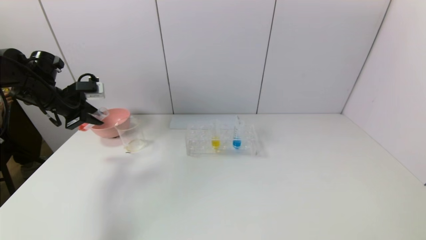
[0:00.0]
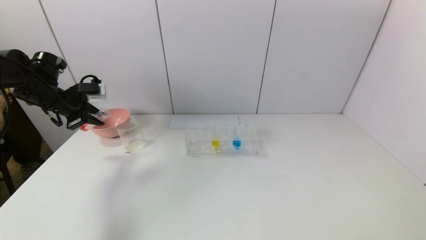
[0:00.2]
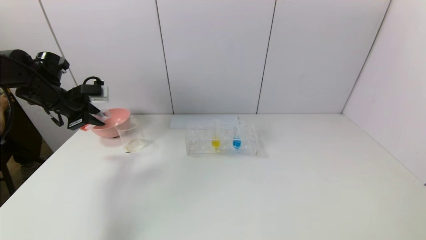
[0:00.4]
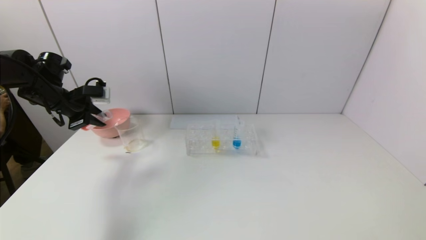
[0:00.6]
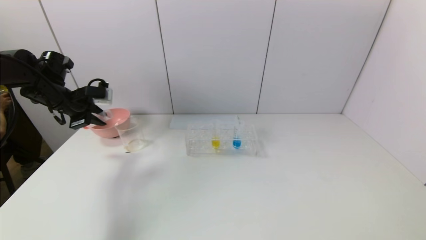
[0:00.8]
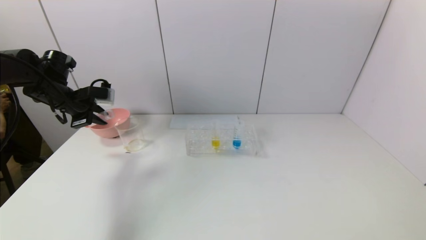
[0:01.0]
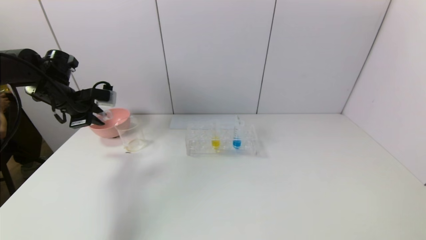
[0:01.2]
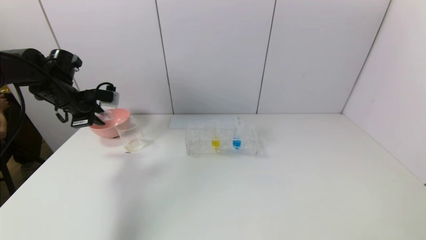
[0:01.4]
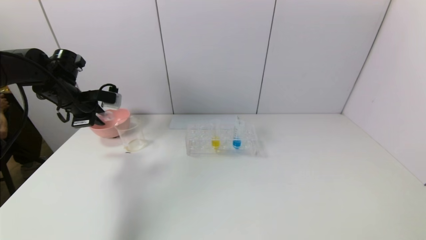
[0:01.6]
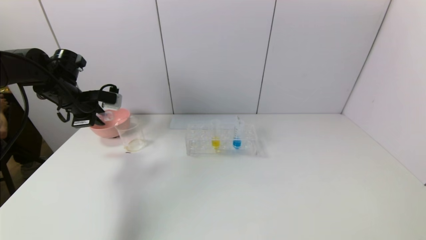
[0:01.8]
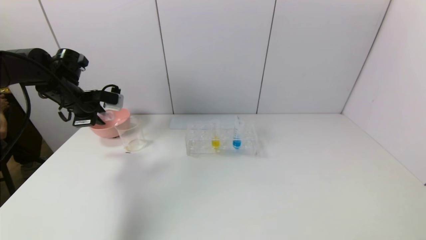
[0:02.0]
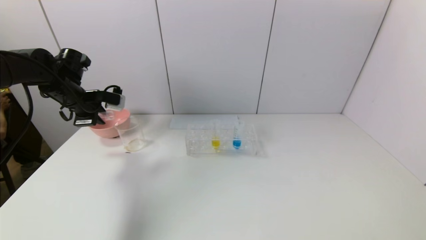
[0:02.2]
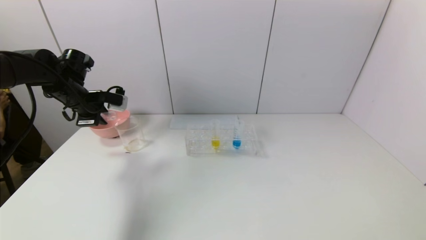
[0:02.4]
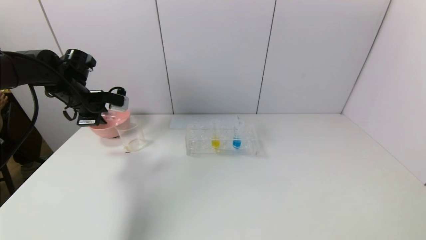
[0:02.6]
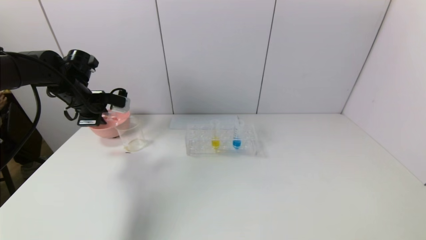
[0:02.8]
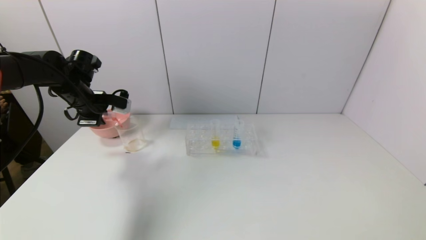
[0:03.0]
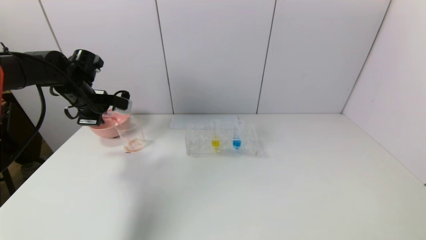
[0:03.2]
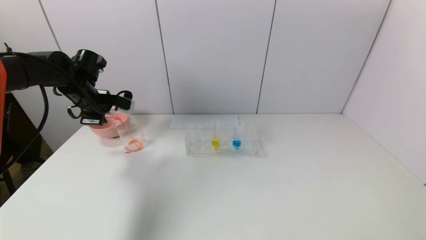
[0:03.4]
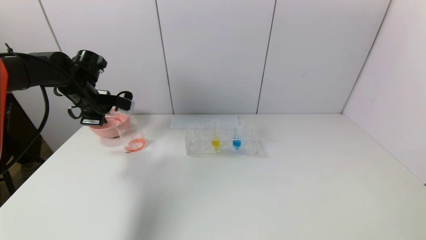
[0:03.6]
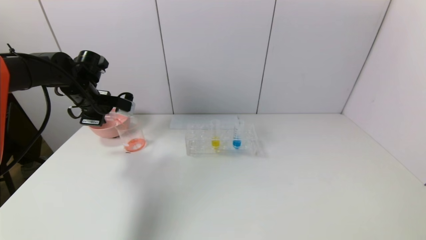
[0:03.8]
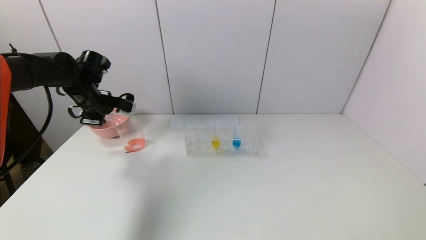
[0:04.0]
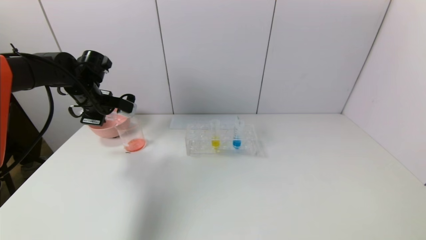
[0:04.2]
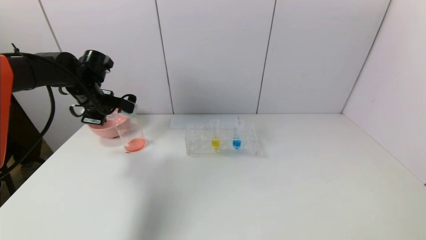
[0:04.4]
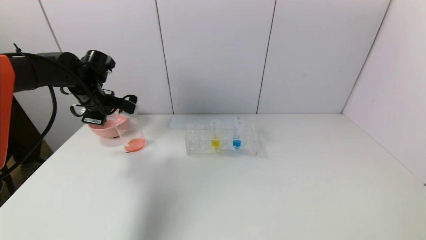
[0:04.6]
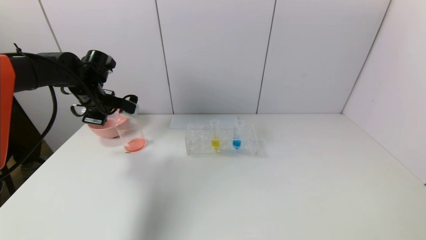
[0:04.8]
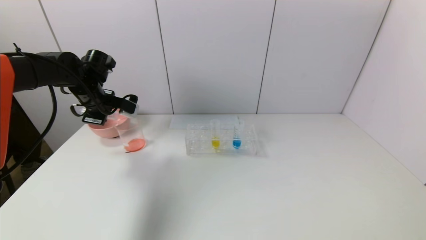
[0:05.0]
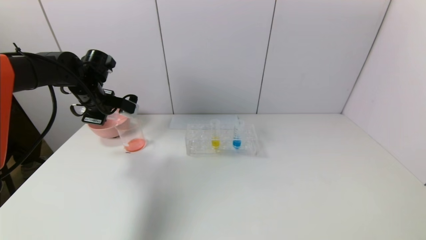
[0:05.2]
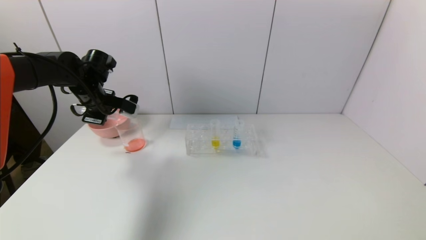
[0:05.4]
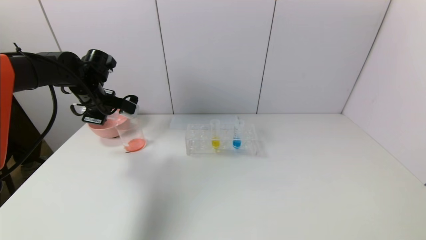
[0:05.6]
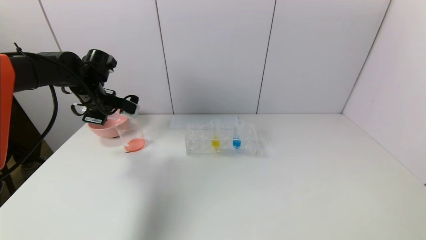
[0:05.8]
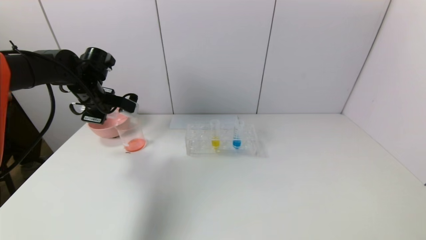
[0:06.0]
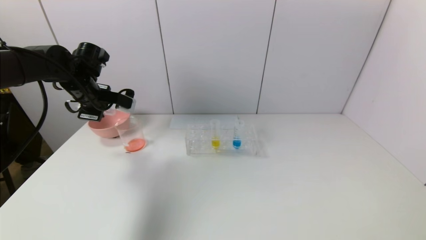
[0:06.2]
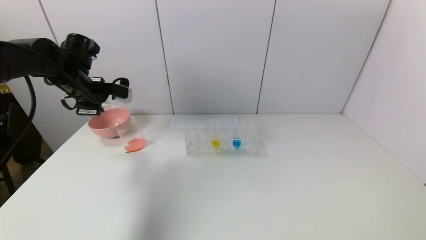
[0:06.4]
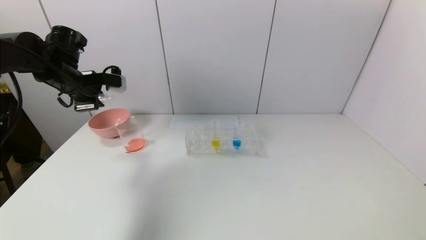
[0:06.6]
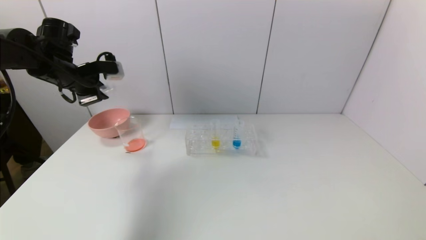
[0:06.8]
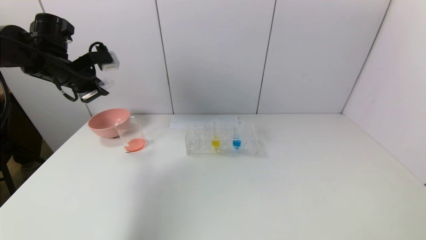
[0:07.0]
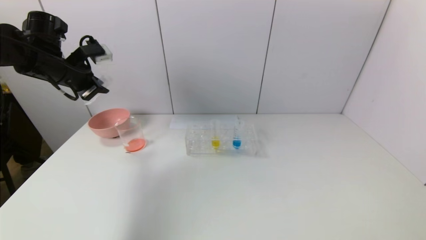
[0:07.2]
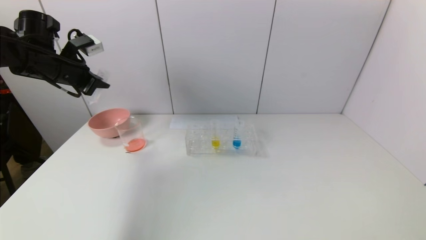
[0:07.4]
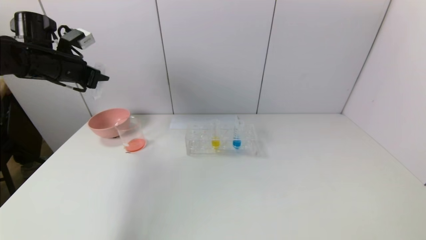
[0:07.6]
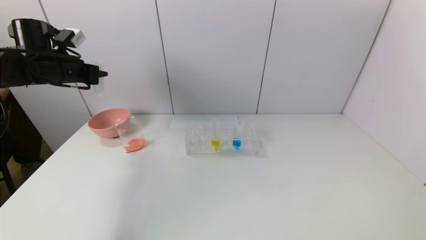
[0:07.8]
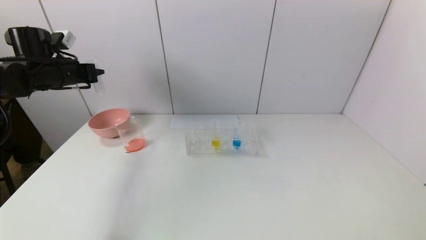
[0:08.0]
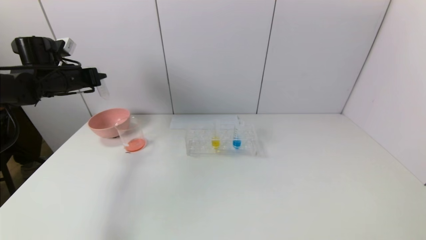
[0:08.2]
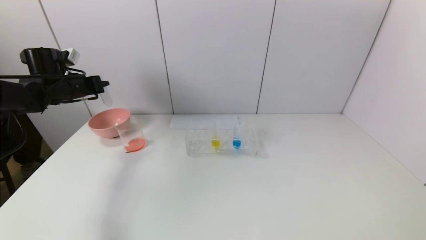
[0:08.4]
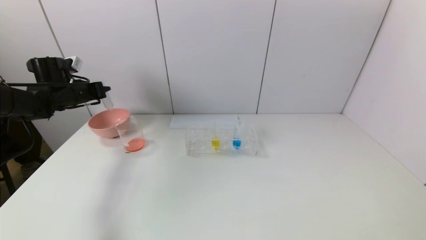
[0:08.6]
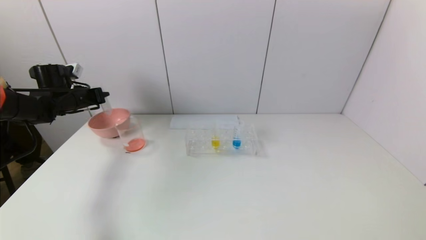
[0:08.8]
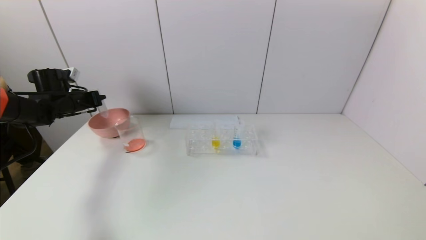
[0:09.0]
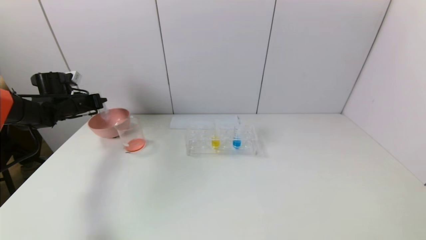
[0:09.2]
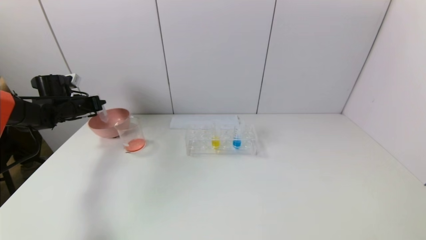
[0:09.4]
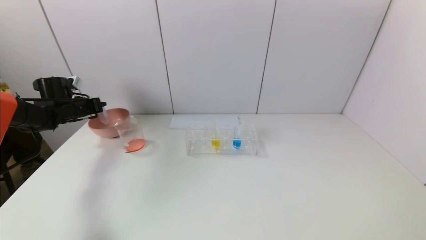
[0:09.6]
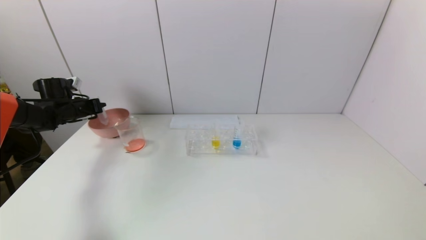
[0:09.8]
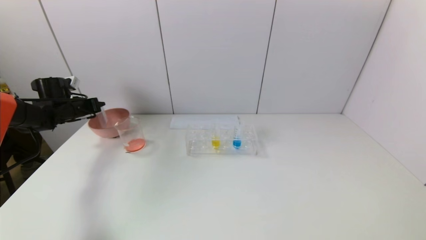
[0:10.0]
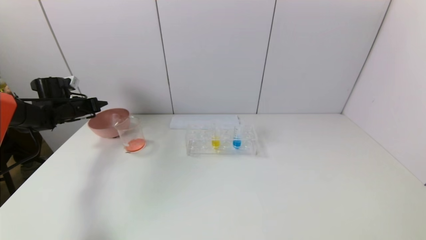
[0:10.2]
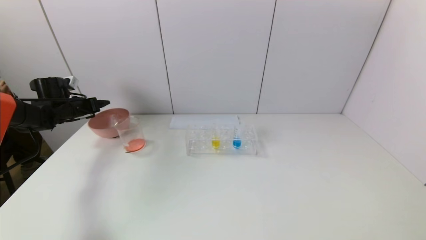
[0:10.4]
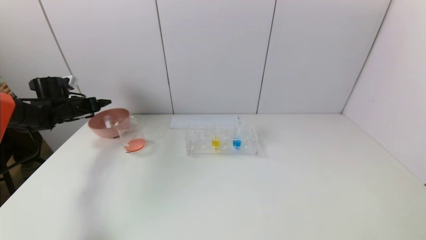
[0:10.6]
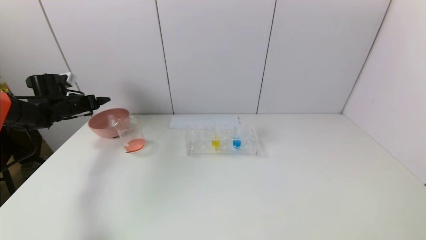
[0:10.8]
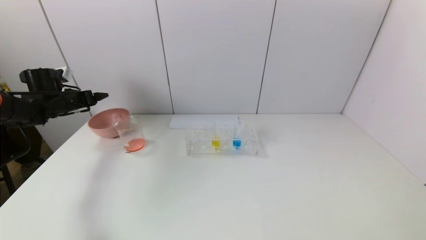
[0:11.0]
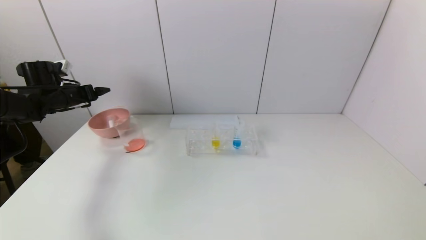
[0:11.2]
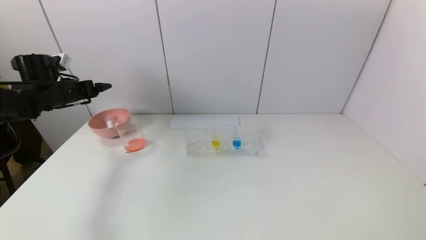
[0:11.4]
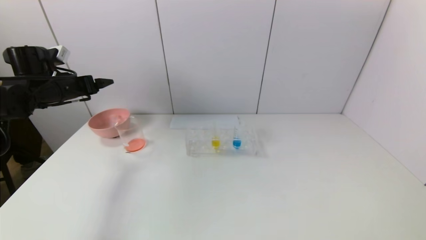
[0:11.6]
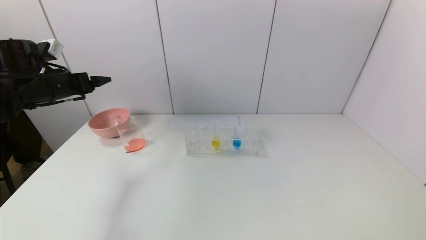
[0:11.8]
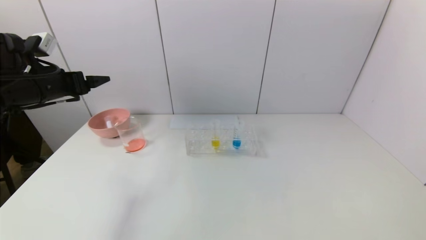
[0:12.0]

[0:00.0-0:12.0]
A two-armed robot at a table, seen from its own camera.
Task of the whole recording: pick up the test tube with yellow pigment and the test tube with red pigment by grippers and pour them into the beaker.
Step, 0:00.0 to 0:05.8: Pour the red reagent into the graduated cylinder with the left gripper.
Step, 0:06.0 to 0:10.2: Place the test tube into the pink bowl with the left gripper.
0:00.0 to 0:01.6: The grippers stay close to where they were, moving slightly.
0:01.6 to 0:03.0: The grippers make only small movements.
0:03.0 to 0:04.4: The grippers stay close to where they were, moving slightly.
0:04.4 to 0:06.0: Both grippers stay about where they are.
0:06.0 to 0:07.6: The left gripper goes some 10 cm upward and to the left.
0:07.6 to 0:09.0: The left gripper travels downward, to the left and forward by roughly 15 cm.
0:09.0 to 0:10.4: The left gripper opens.
0:10.4 to 0:12.0: The left gripper shifts some 20 cm backward, upward and to the right.

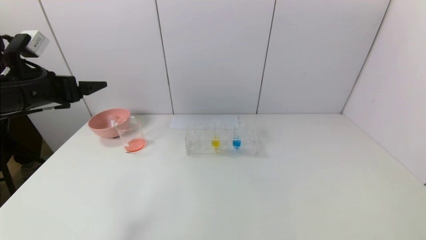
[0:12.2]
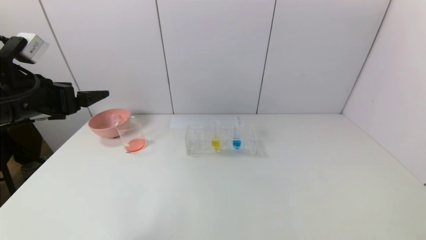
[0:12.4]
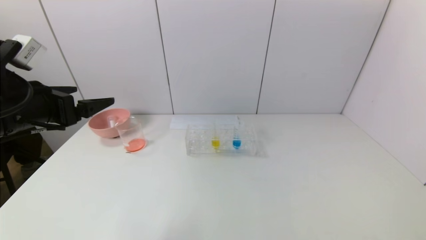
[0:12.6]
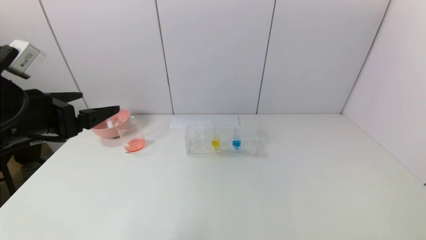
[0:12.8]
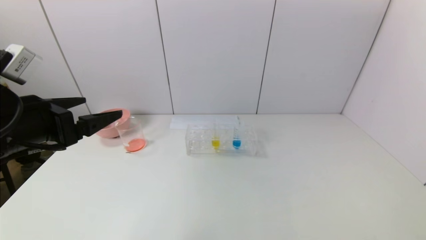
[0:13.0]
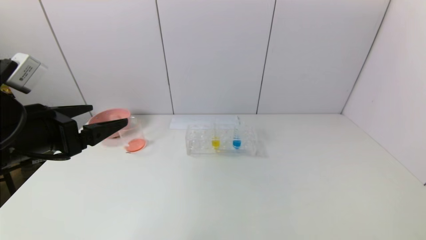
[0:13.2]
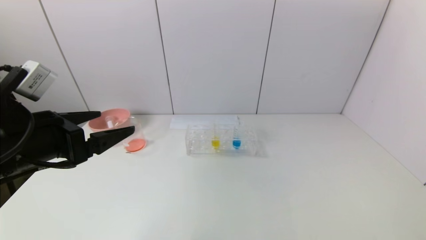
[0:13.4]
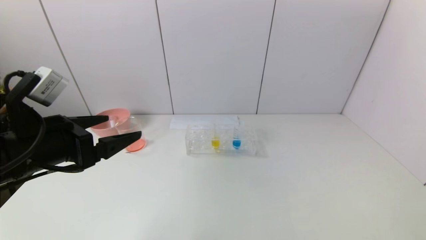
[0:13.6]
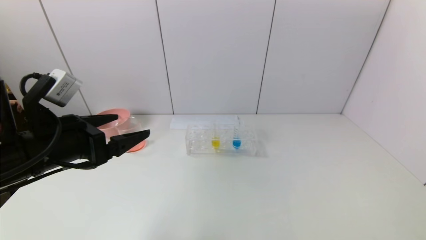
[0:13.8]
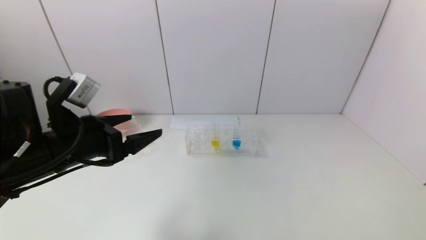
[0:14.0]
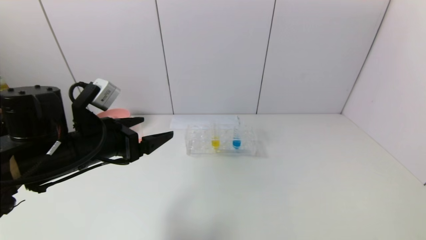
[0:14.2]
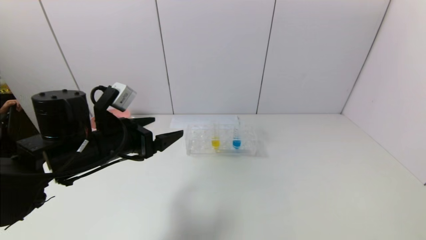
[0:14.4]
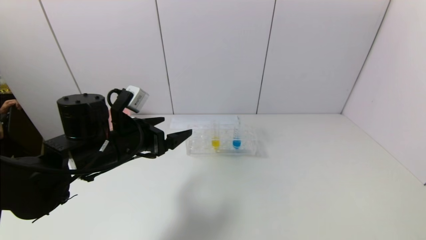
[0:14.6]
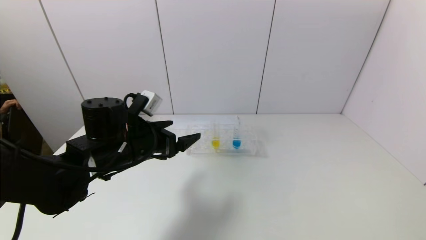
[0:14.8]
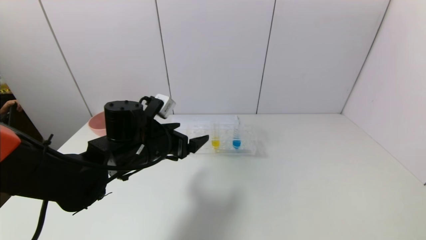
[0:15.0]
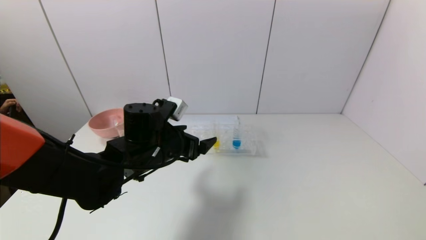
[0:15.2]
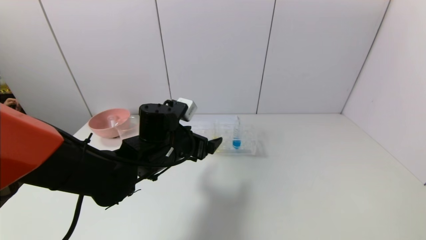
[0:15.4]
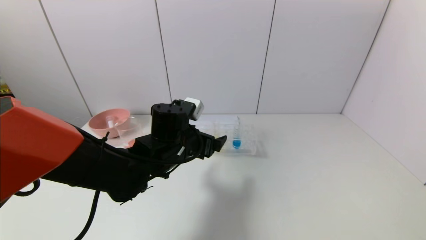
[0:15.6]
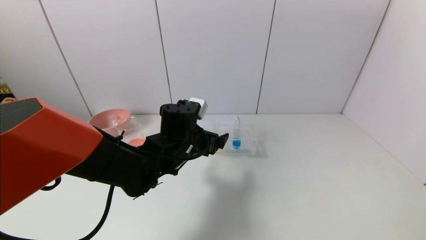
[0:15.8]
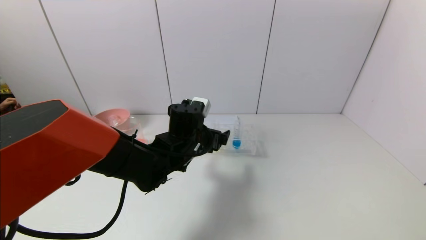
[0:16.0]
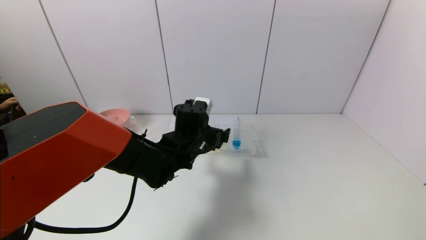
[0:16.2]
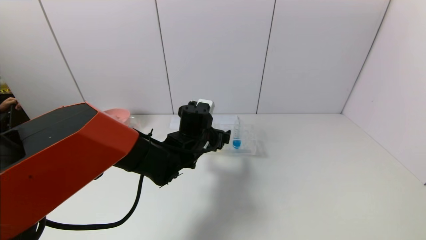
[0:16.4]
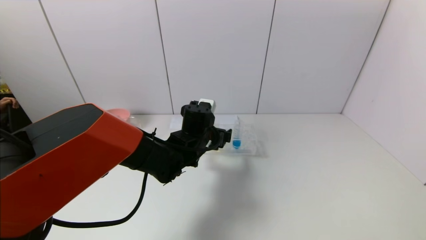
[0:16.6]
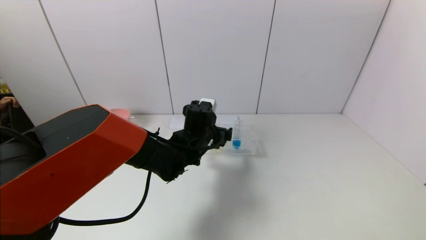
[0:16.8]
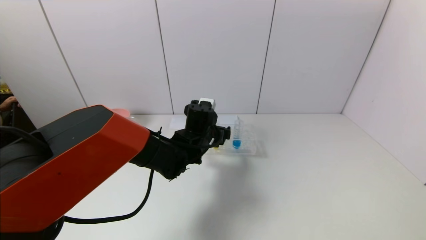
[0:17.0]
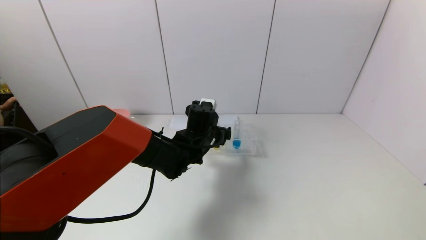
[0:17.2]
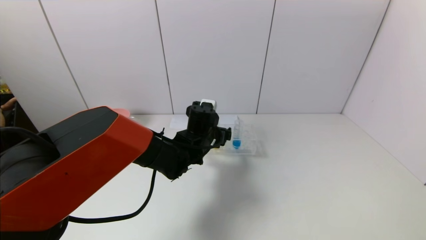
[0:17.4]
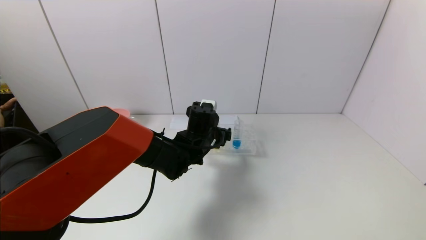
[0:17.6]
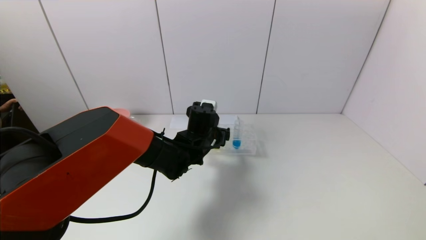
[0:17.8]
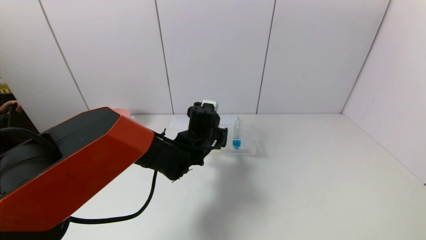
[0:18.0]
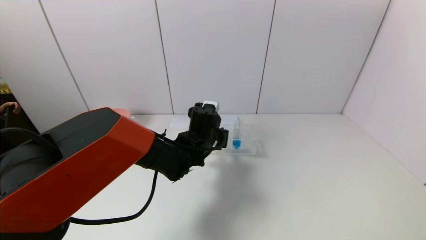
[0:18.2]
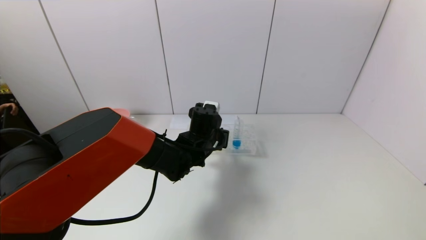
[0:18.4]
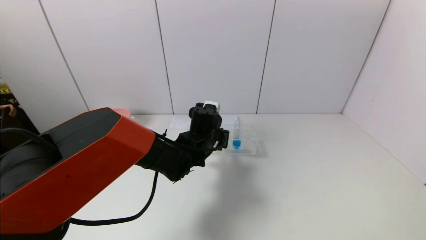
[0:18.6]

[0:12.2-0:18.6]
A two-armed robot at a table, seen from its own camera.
Task of the whole recording: pick up the test tube with yellow pigment and the test tube with red pigment by grippers and pour them into the beaker.
Step, 0:12.2 to 0:18.4: Grasp the yellow reagent with the left gripper.
0:12.2 to 0:13.8: The left gripper heads to the right and backward, covering about 10 cm.
0:13.8 to 0:15.4: The left gripper heads to the right, forward and downward, covering roughly 20 cm.
0:15.4 to 0:17.0: The left gripper shifts roughly 10 cm forward and to the right.
0:17.0 to 0:18.6: The left gripper closes its fingers.
